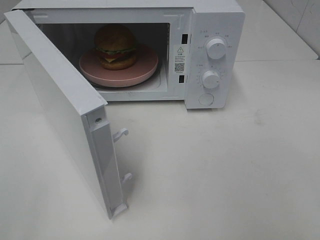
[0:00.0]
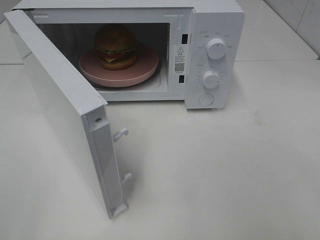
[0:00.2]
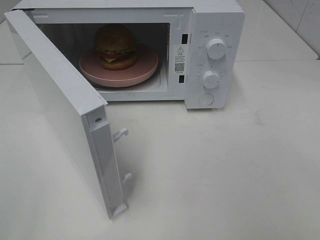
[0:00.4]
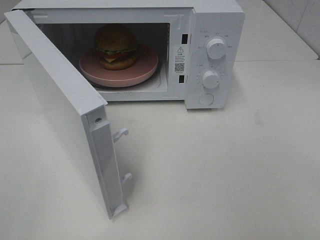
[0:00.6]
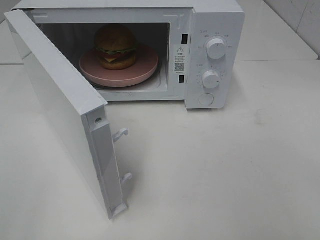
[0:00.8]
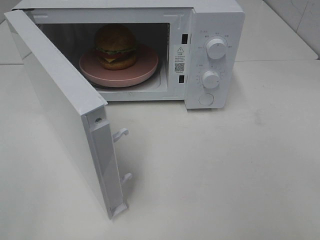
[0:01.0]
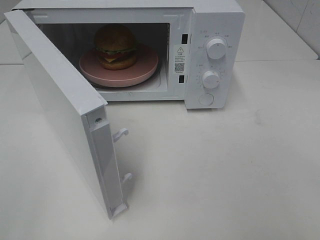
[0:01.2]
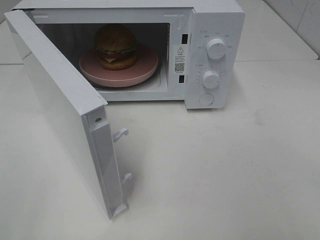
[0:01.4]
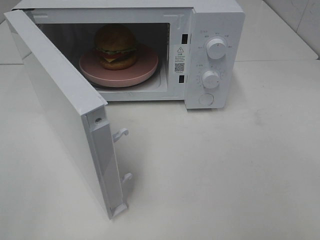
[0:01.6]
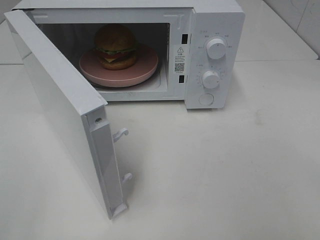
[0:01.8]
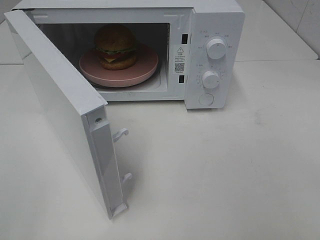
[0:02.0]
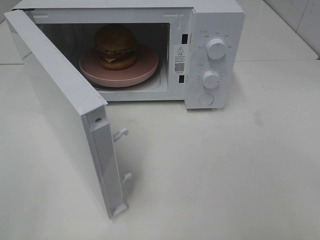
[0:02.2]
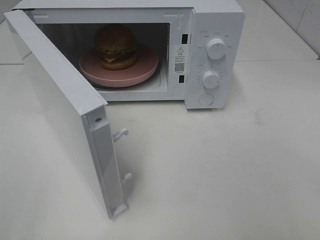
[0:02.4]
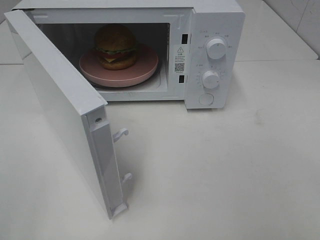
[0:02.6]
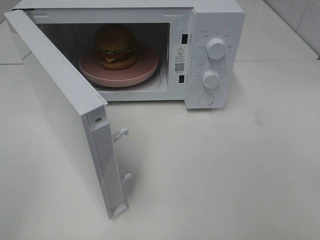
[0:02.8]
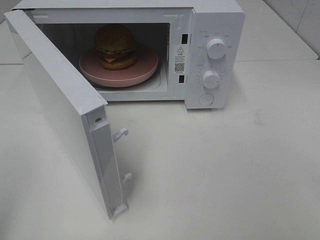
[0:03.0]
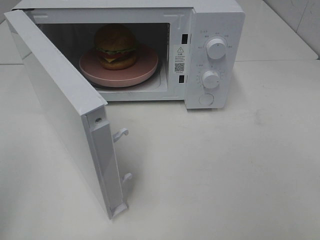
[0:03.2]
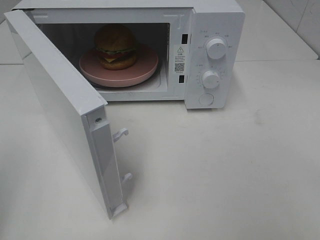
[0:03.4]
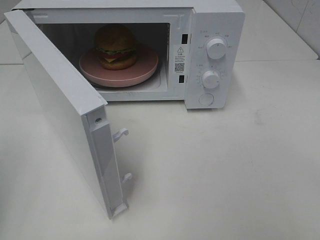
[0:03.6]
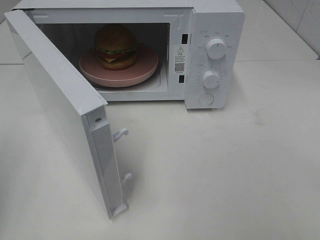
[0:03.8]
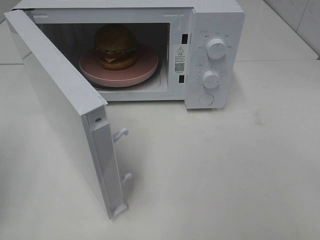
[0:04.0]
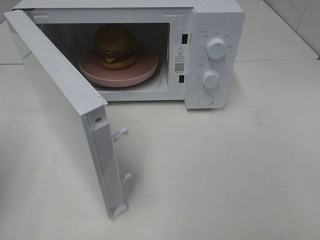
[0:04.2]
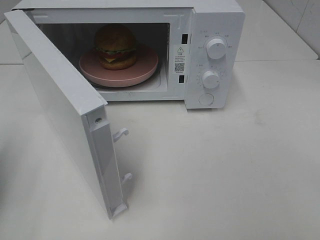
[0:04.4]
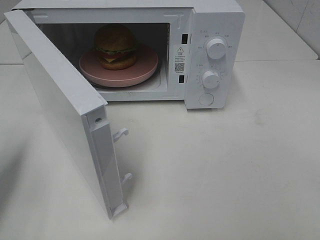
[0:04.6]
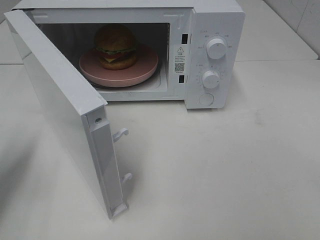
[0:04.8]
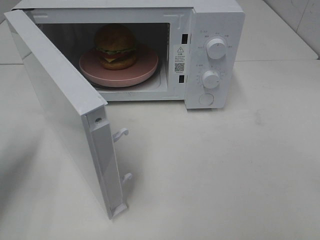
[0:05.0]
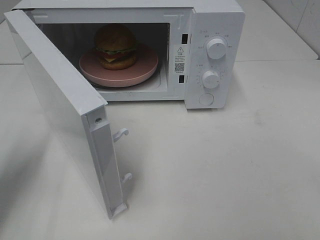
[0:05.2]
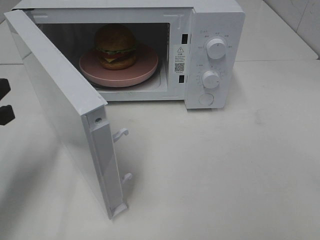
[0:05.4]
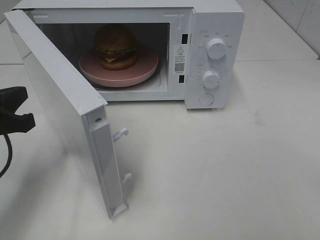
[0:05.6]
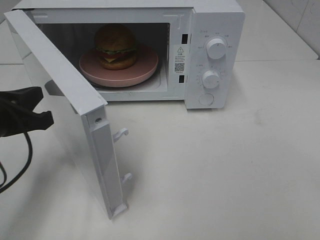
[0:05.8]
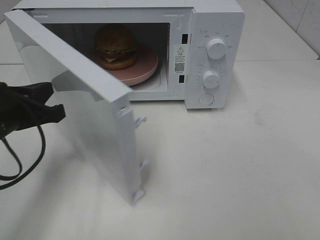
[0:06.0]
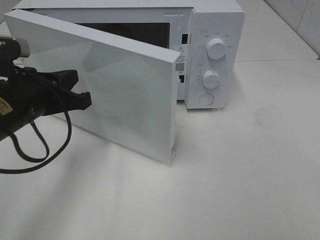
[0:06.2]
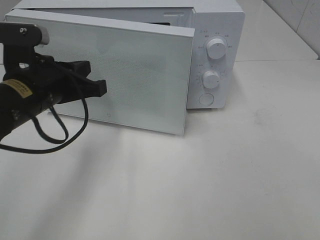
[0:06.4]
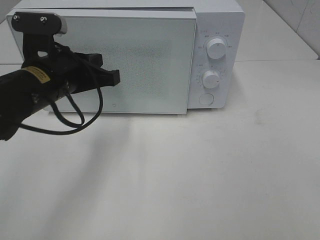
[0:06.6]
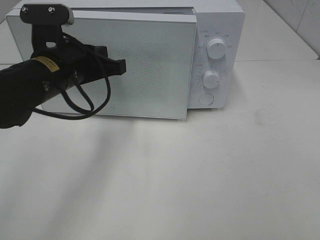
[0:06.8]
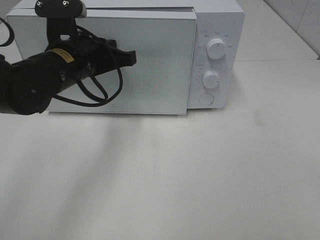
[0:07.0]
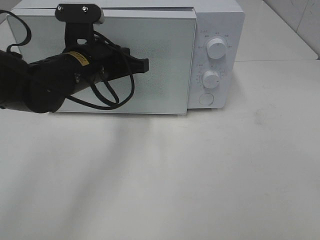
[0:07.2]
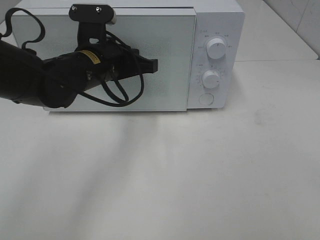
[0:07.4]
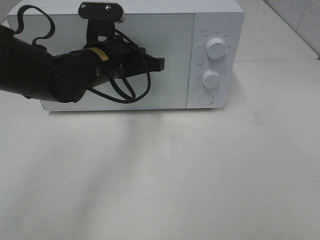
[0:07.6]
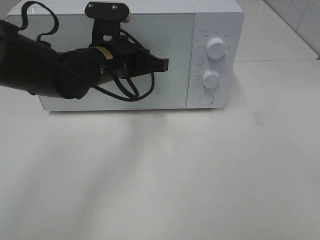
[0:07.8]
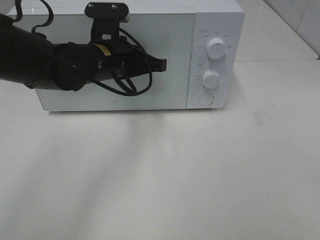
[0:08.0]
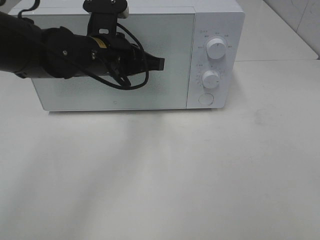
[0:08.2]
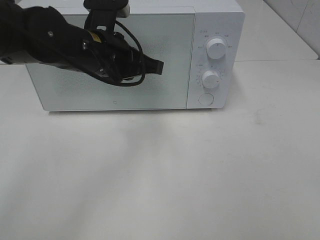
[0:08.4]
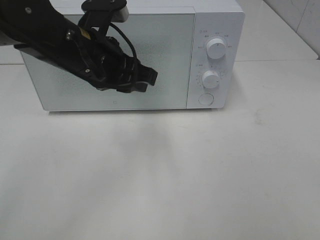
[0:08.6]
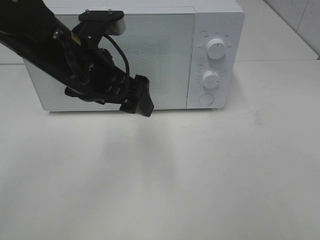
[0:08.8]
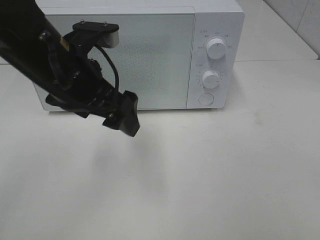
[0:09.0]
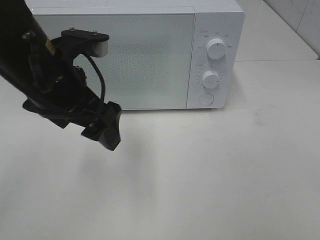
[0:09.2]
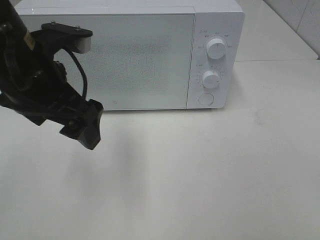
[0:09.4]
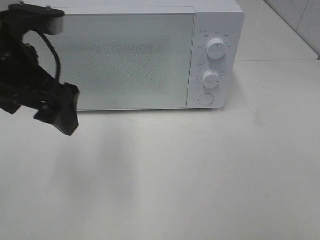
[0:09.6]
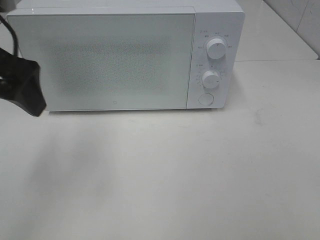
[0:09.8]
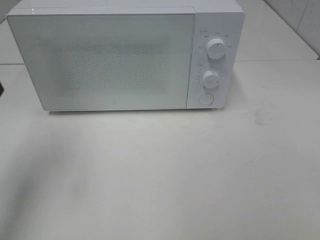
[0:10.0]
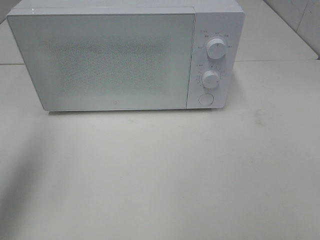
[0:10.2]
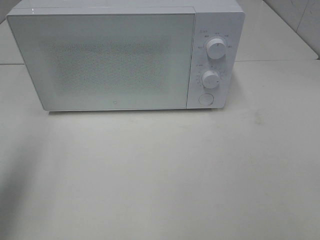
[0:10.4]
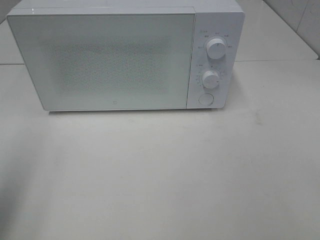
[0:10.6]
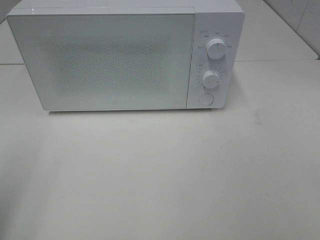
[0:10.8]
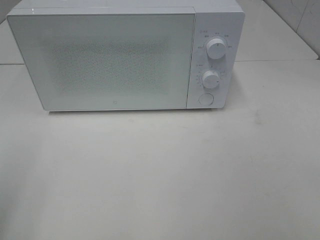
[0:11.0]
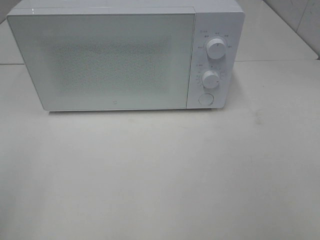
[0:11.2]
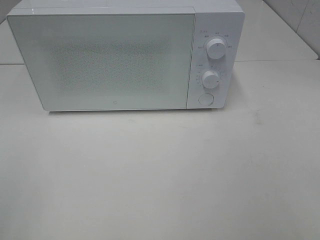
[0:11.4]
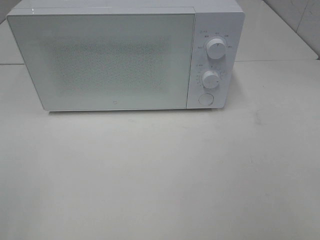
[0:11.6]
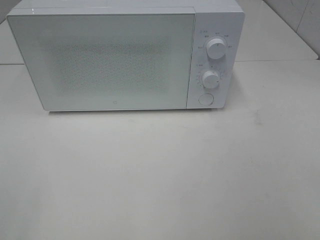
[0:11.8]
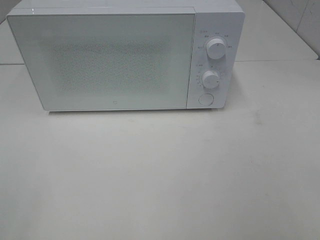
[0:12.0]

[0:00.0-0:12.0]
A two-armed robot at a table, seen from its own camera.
Task of the whole recording: Heat the burger.
Step, 0:00.0 to 0:08.0: Left hand: close the microwave door.
0:04.4 to 0:06.0: The left gripper heads to the right, forward and downward, covering approximately 15 cm.
0:06.0 to 0:07.6: The left gripper shifts approximately 20 cm to the right and forward.
0:07.6 to 0:09.0: The left gripper is displaced backward and upward by about 10 cm, and opens.
0:09.0 to 0:10.4: The left gripper moves to the left and backward, about 20 cm.
0:10.4 to 0:12.0: The left gripper goes about 15 cm backward.

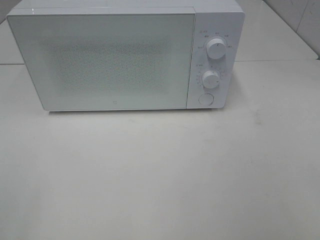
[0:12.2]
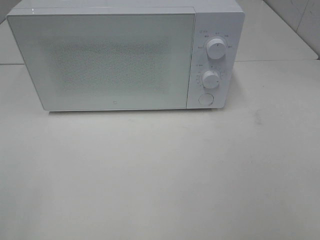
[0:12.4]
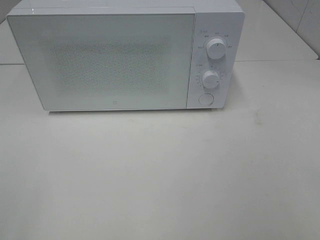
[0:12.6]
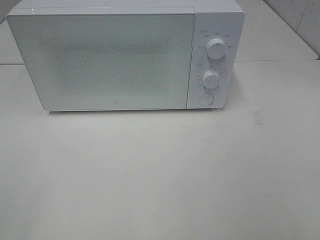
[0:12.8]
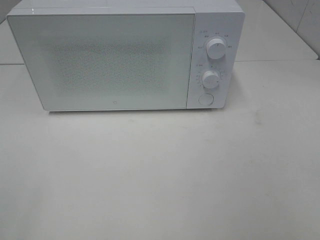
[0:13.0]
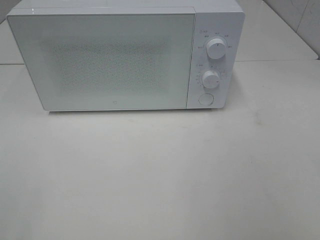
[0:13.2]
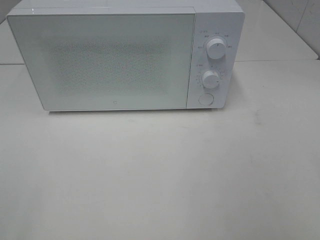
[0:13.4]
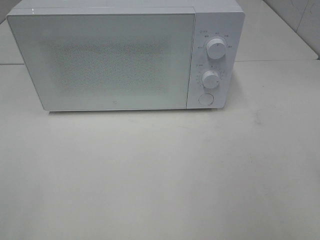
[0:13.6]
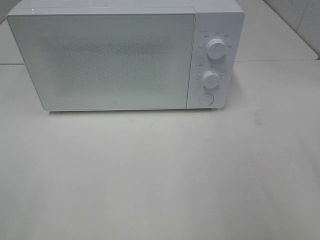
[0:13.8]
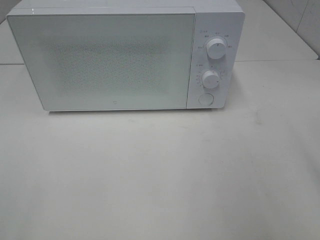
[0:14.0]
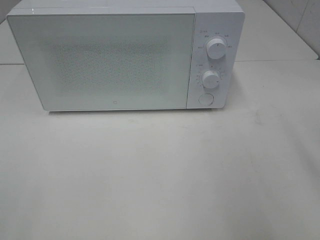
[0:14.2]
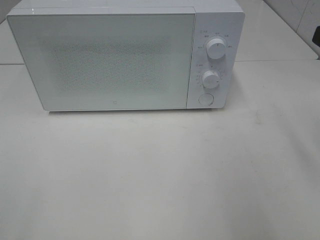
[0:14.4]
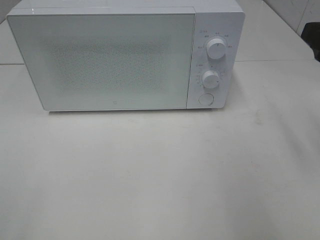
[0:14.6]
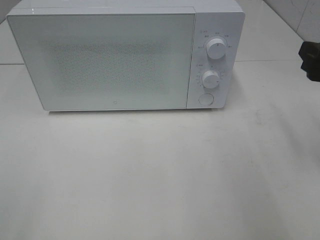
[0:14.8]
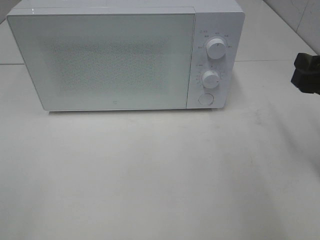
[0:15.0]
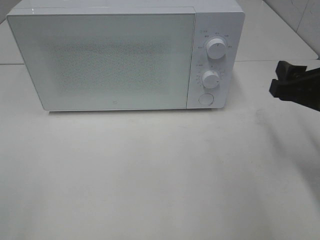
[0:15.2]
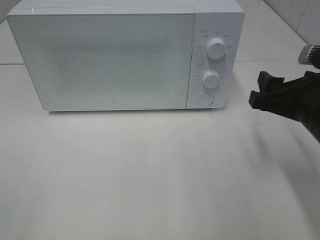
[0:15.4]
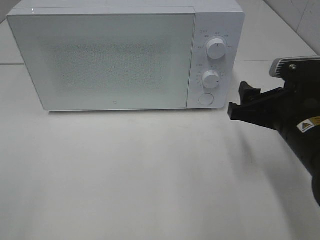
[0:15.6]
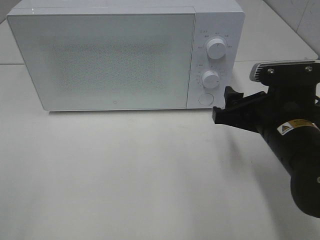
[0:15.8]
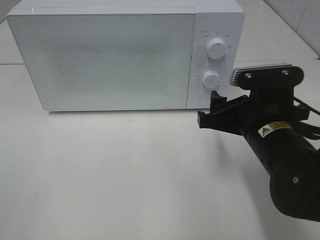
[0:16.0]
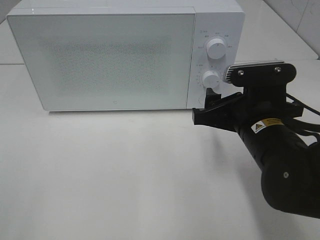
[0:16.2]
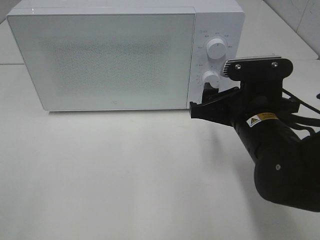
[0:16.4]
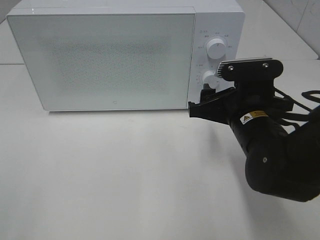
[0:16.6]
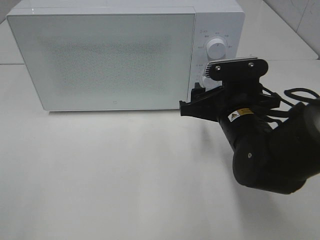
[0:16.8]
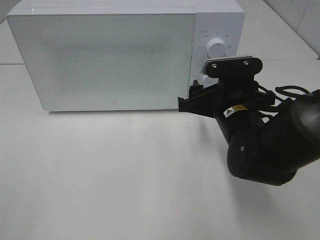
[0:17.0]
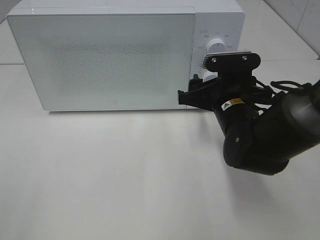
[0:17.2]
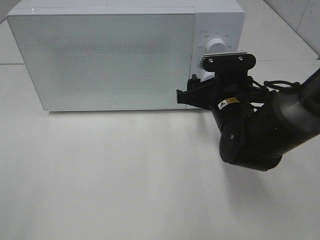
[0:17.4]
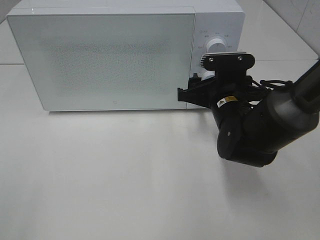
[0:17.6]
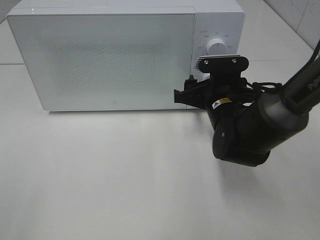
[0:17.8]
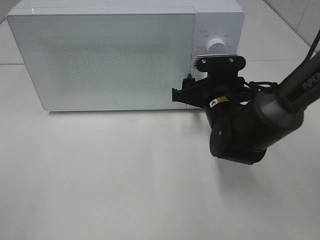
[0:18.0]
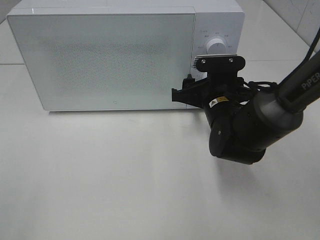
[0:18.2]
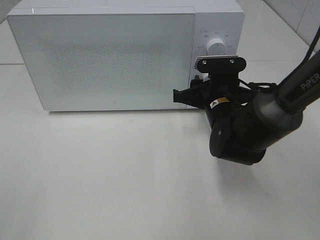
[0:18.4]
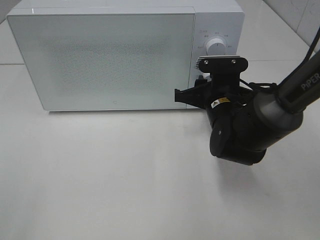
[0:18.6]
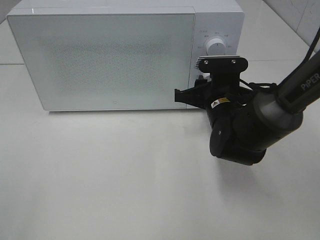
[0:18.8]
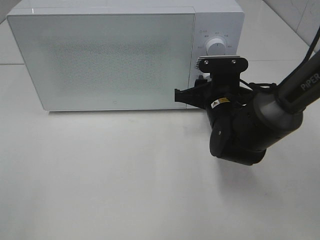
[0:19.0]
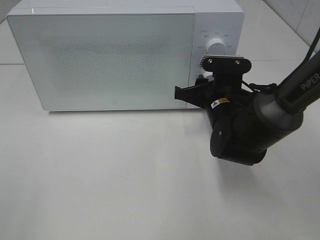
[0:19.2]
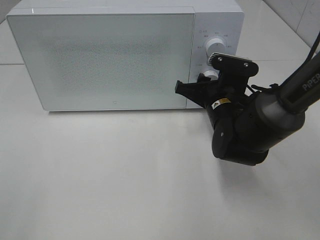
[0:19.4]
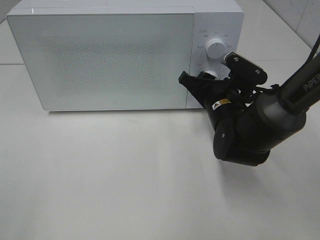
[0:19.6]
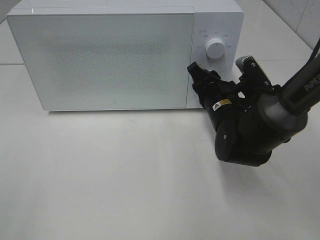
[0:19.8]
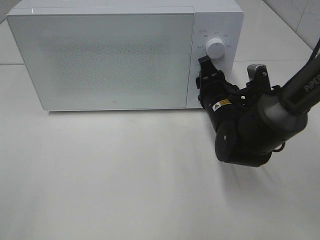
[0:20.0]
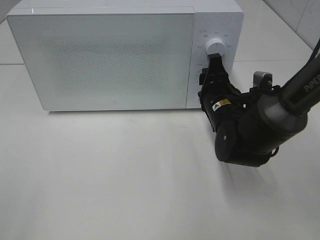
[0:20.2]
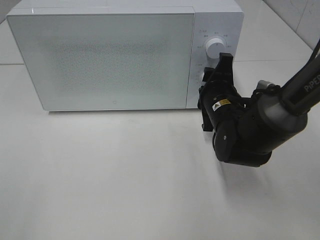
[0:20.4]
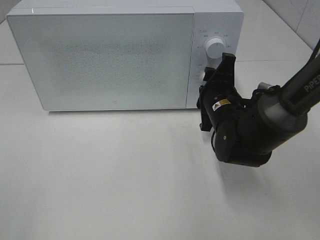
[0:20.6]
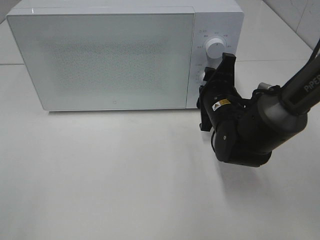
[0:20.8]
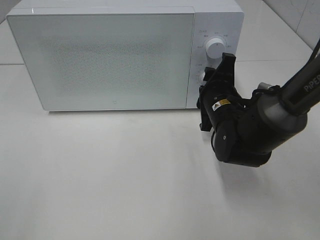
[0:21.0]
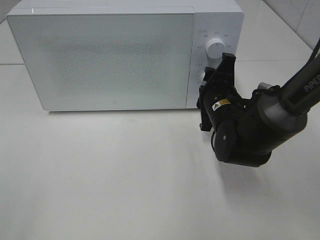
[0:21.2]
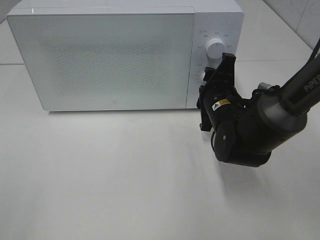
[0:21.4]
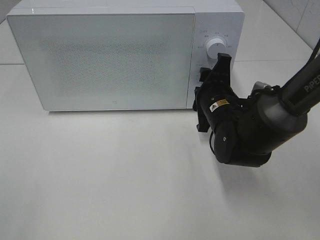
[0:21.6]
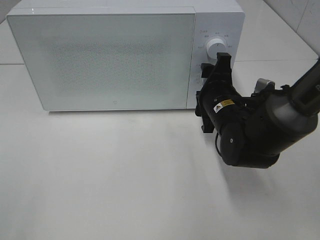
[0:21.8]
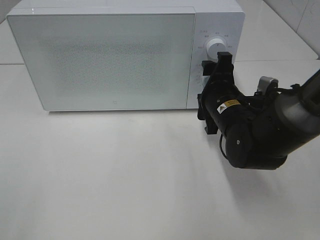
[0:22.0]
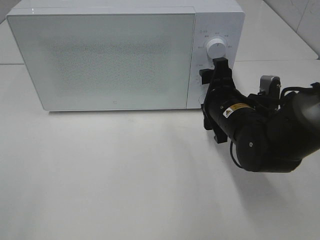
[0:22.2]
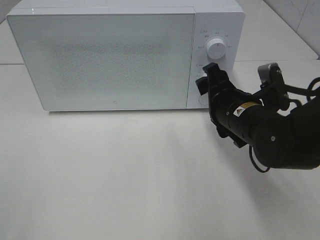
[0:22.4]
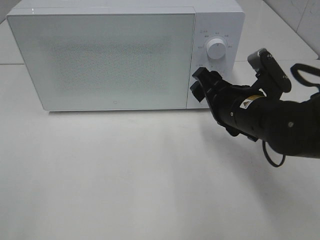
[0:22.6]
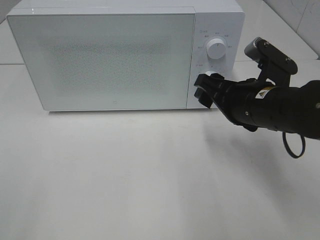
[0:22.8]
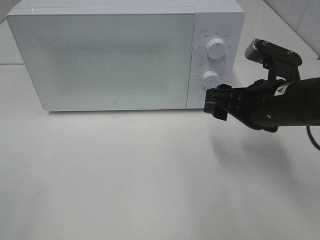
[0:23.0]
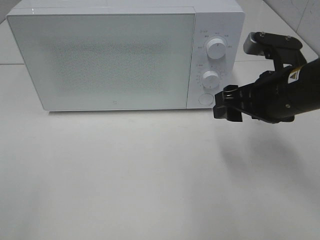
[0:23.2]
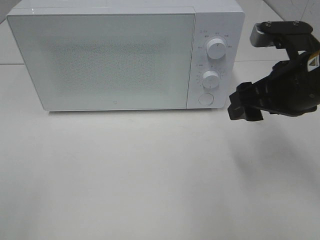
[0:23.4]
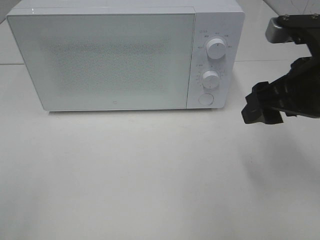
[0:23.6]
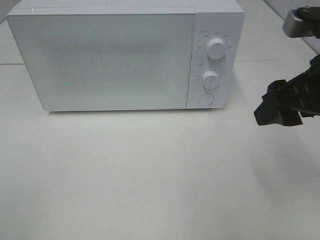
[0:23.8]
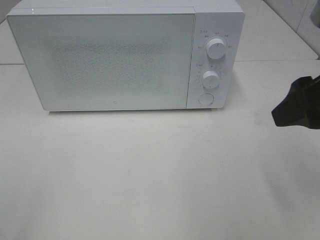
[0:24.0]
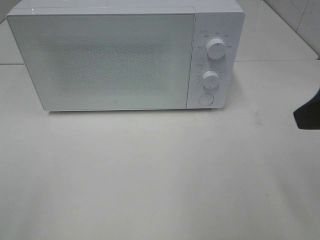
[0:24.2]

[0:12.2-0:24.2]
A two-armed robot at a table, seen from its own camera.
Task of the whole recording: Heat the burger.
Step, 0:12.2 to 0:21.6: Right hand: twist timer button.
0:13.8 to 0:15.2: The right gripper shifts some 15 cm forward and downward.
0:15.2 to 0:16.6: The right gripper shifts about 10 cm to the left and downward.
0:16.6 to 0:18.2: The right gripper heads forward, covering roughly 10 cm.
0:21.2 to 0:22.6: The right gripper goes approximately 5 cm backward.
0:22.6 to 0:24.2: The right gripper travels upward, backward and to the right by about 20 cm.
